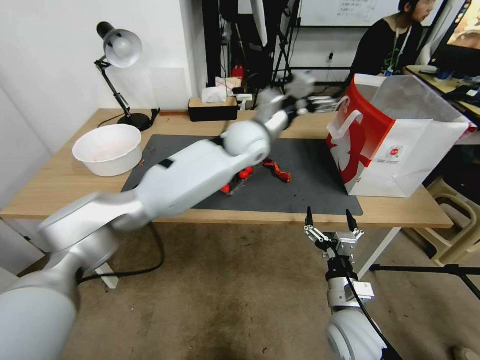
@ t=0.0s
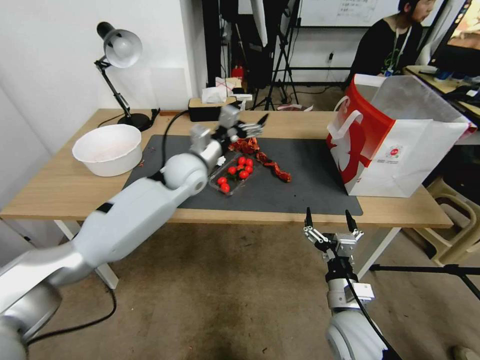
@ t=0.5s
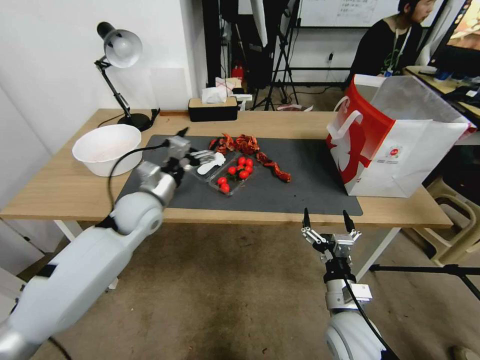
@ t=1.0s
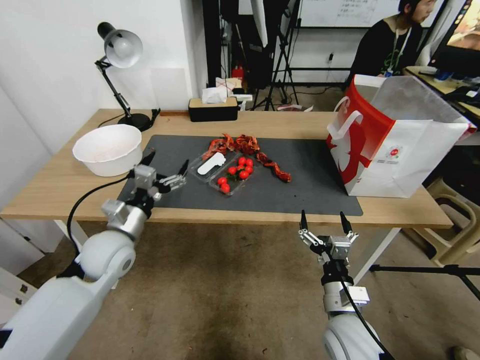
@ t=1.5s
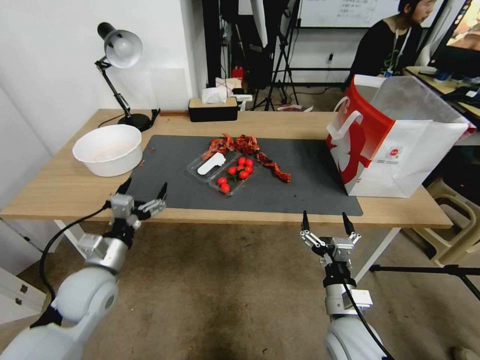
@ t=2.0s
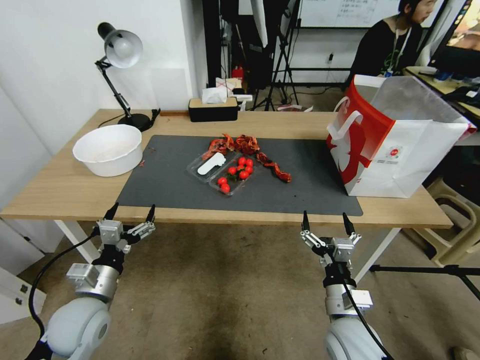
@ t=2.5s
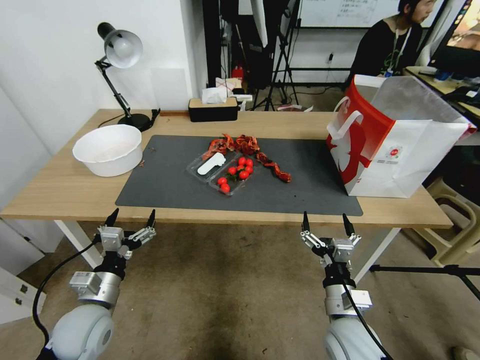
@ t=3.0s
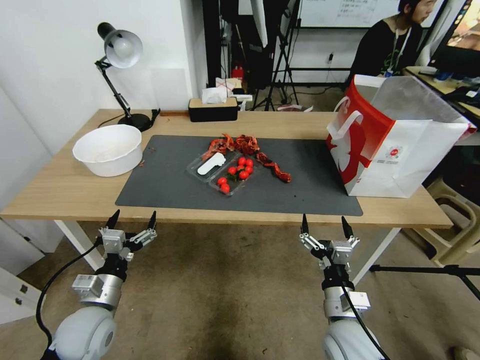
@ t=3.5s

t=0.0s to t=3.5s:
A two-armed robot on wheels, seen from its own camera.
t=0.0s to t=2.0s: The left gripper travels to the left, backward and downward by roughly 40 cm.
t=2.0s to t=3.5s: The left gripper goes about 10 cm downward and backward.
